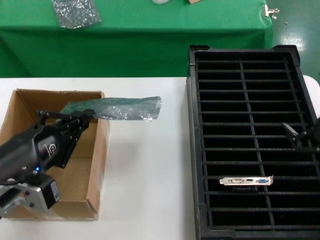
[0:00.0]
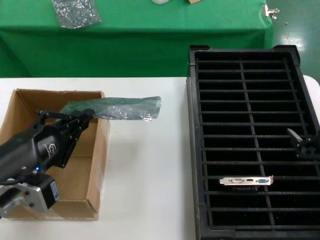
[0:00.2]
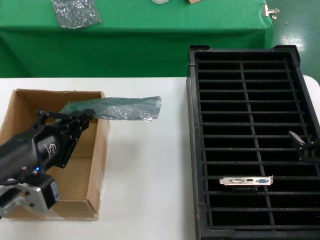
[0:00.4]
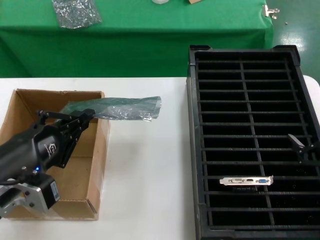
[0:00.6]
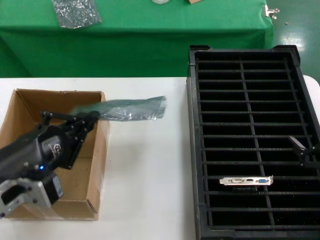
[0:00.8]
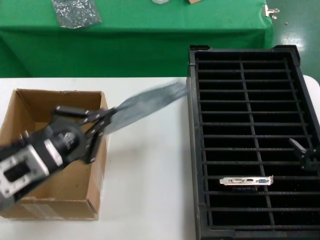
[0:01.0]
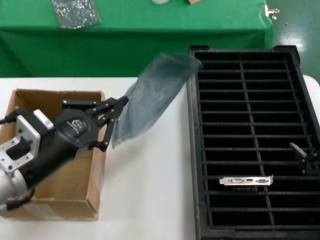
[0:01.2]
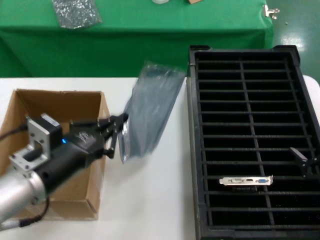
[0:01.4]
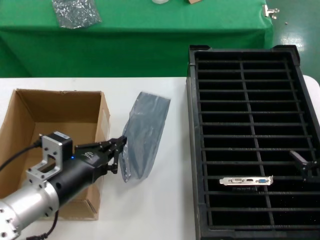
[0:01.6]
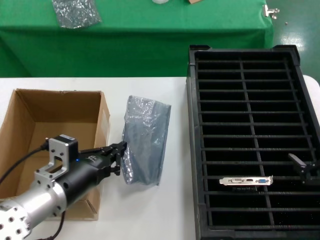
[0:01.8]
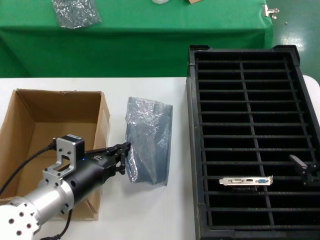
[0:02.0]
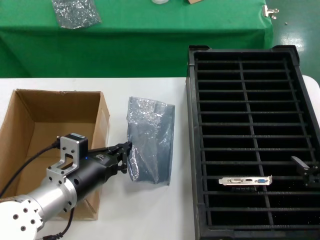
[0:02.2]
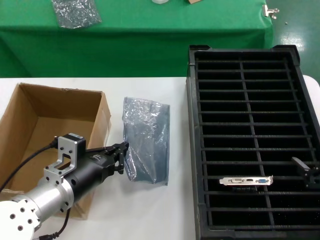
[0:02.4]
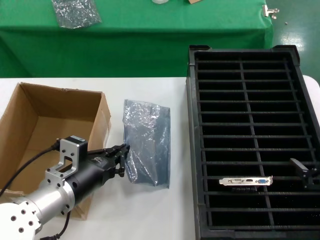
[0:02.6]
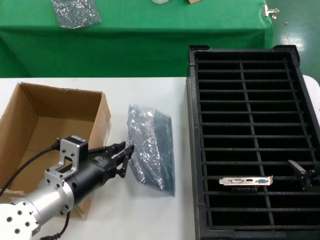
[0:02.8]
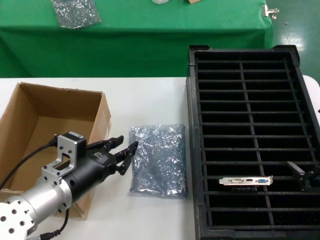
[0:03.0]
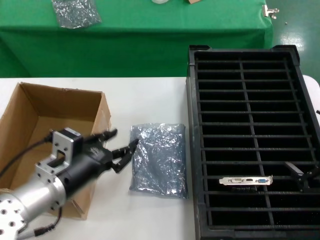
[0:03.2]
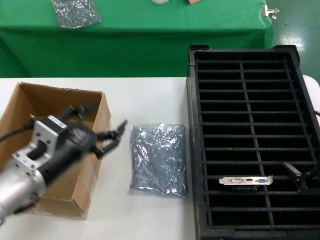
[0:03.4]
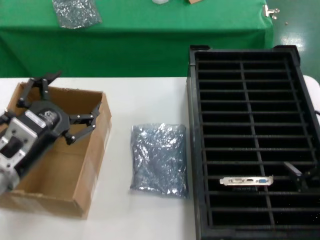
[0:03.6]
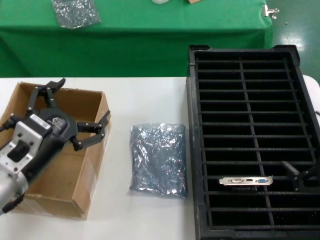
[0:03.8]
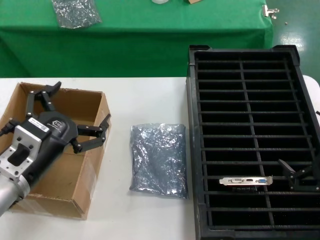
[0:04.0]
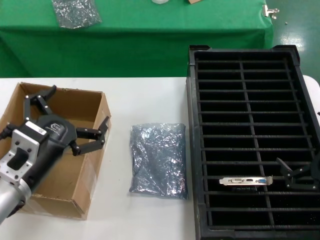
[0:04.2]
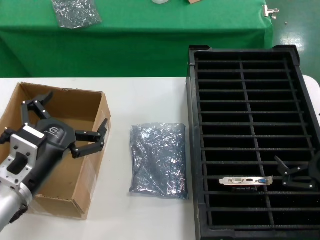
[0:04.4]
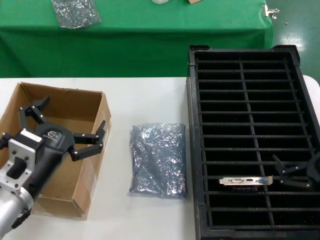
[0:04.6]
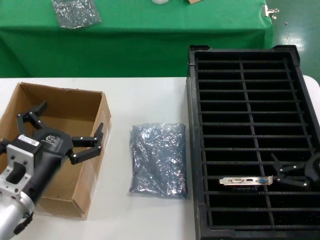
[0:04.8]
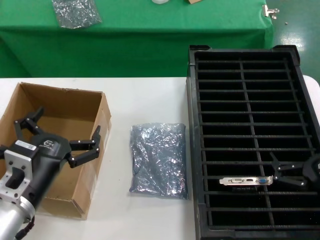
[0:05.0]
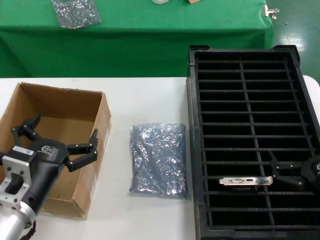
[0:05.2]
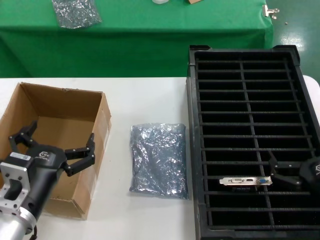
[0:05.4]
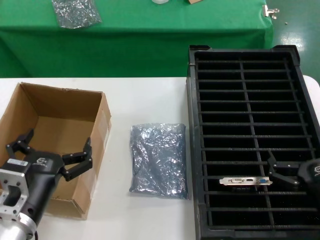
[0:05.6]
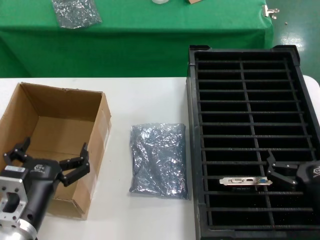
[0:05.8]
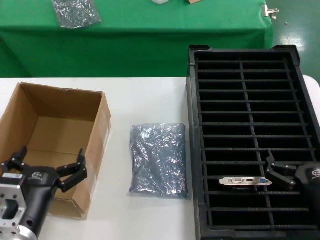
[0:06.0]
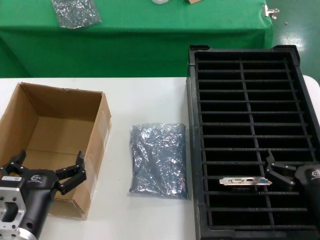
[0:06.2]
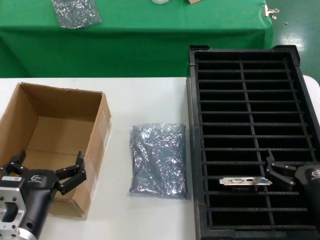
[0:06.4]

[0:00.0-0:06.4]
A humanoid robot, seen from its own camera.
Task of the whole recording: take out graphics card from box remove packaging put into black container.
Step, 0:00.0 to 0:02.8: Place the down the bag.
0:00.0 to 0:01.6: The left hand shifts about 10 cm forward and downward. The right hand ends up about 5 cm from where it was.
0:01.6 to 0:03.2: The hands stay close to where they were, moving slightly.
0:03.2 to 0:04.8: The right hand moves about 5 cm, while the left hand moves approximately 5 cm.
0:04.8 to 0:06.4: The right hand shifts some 5 cm to the left, while the left hand goes roughly 5 cm downward.

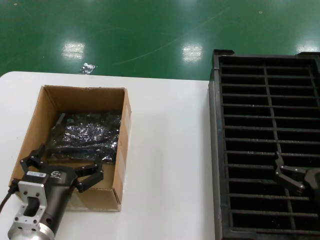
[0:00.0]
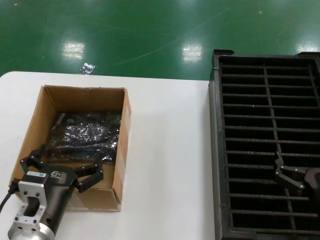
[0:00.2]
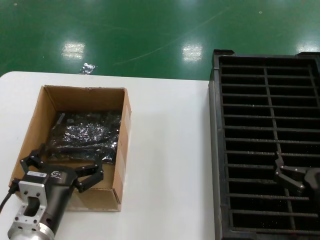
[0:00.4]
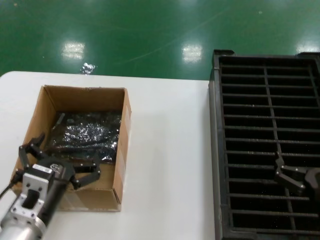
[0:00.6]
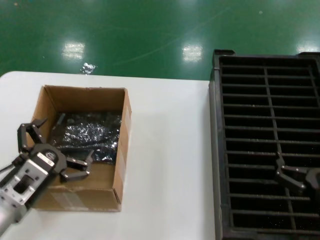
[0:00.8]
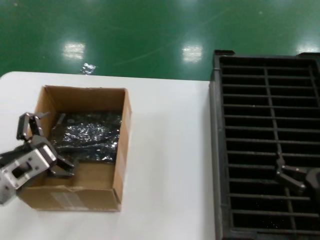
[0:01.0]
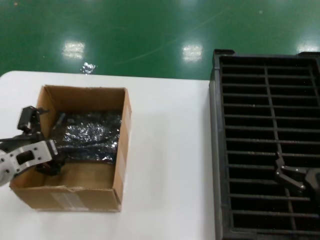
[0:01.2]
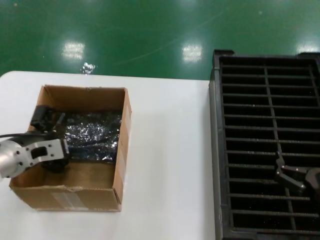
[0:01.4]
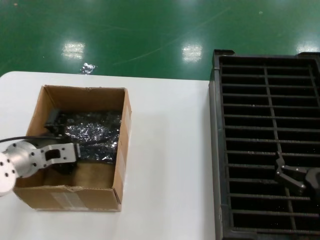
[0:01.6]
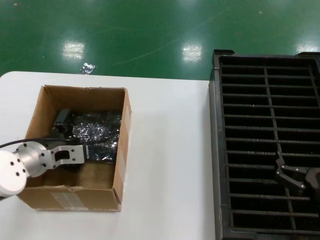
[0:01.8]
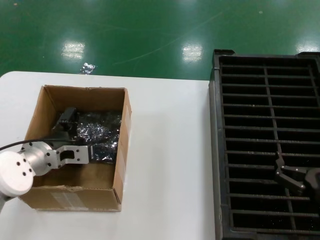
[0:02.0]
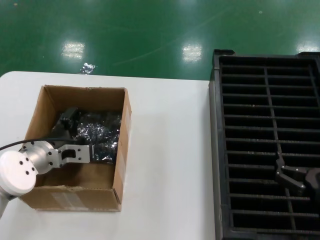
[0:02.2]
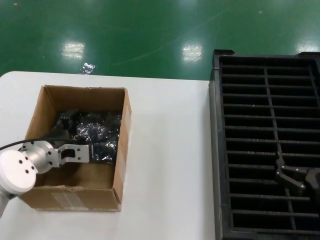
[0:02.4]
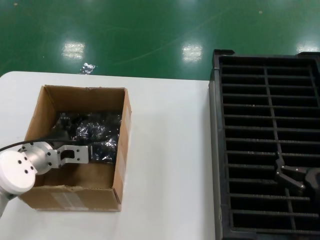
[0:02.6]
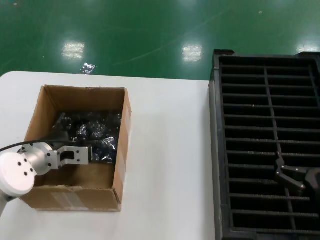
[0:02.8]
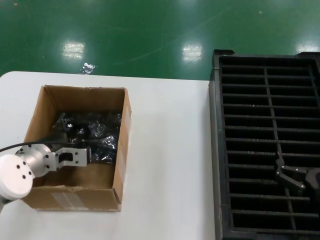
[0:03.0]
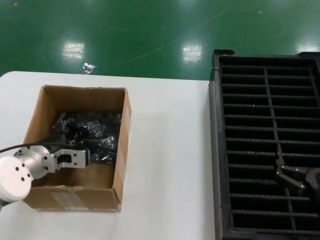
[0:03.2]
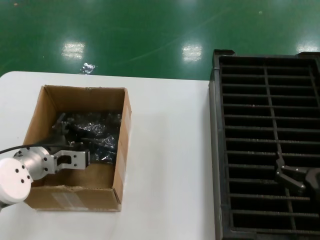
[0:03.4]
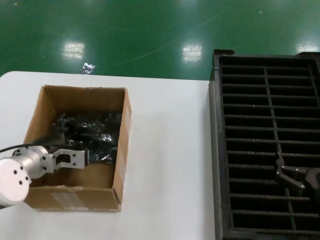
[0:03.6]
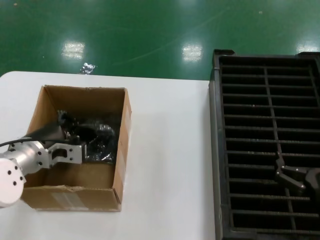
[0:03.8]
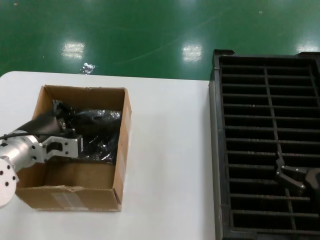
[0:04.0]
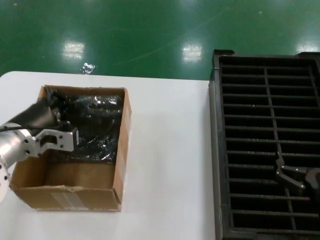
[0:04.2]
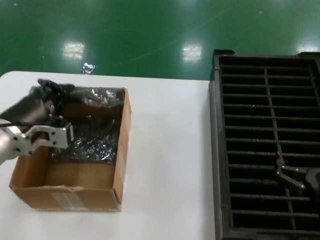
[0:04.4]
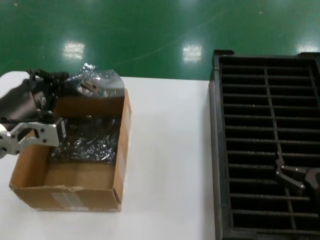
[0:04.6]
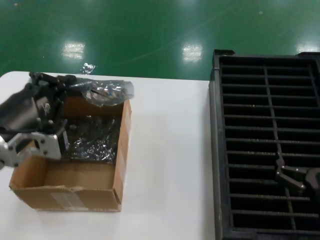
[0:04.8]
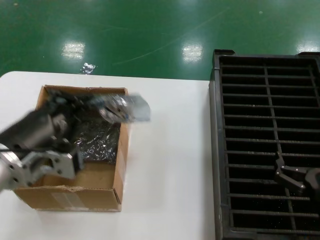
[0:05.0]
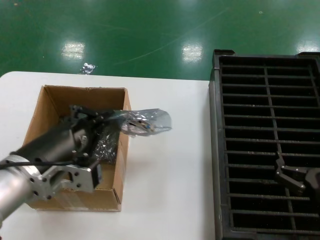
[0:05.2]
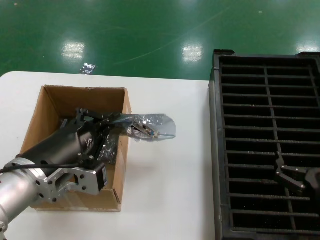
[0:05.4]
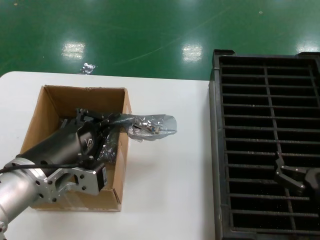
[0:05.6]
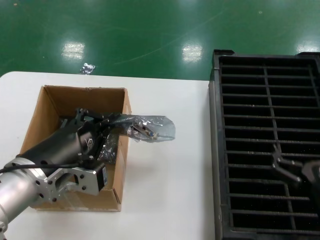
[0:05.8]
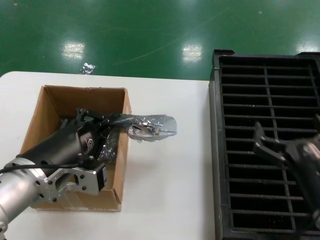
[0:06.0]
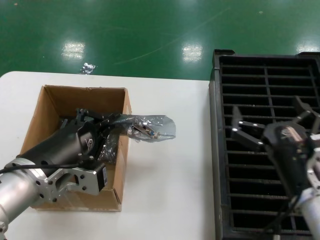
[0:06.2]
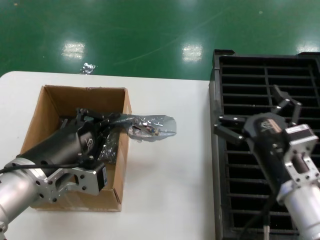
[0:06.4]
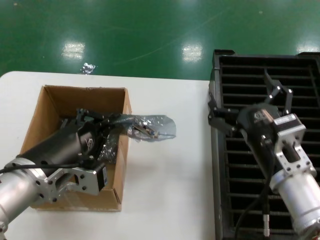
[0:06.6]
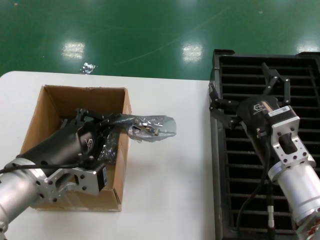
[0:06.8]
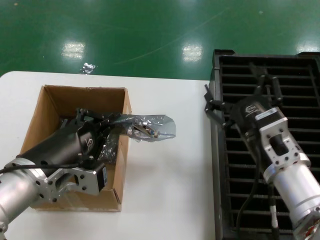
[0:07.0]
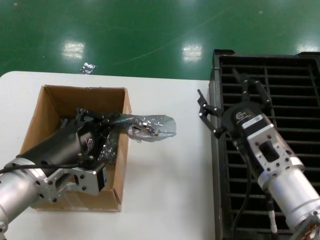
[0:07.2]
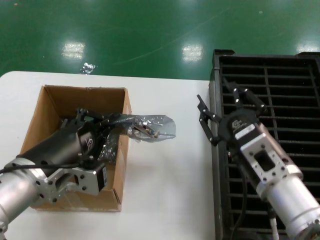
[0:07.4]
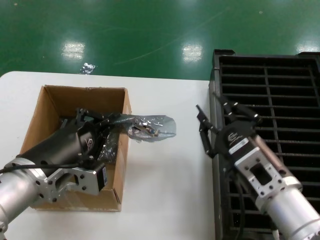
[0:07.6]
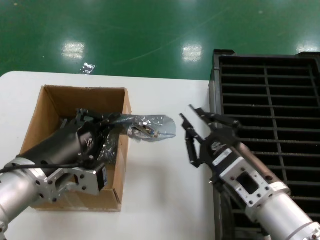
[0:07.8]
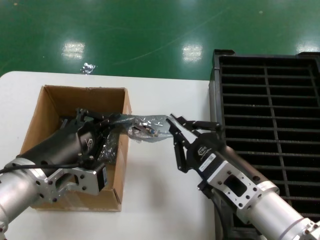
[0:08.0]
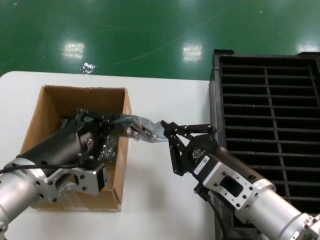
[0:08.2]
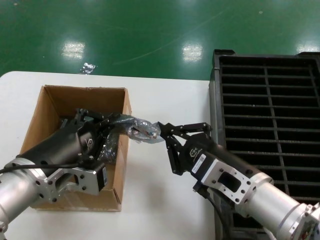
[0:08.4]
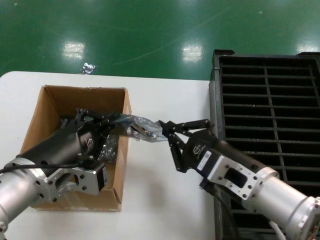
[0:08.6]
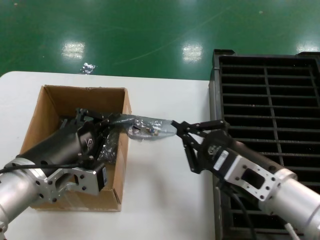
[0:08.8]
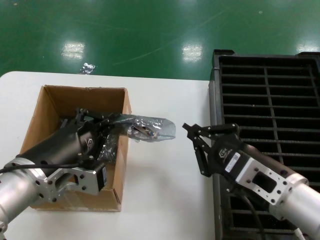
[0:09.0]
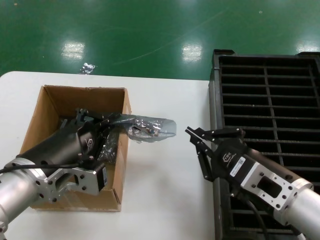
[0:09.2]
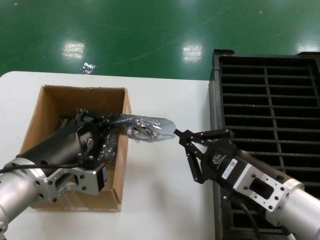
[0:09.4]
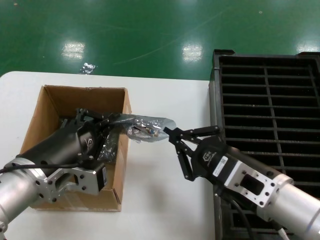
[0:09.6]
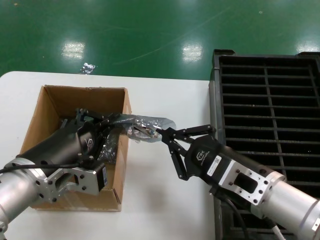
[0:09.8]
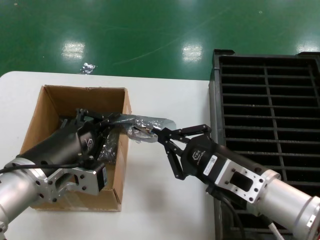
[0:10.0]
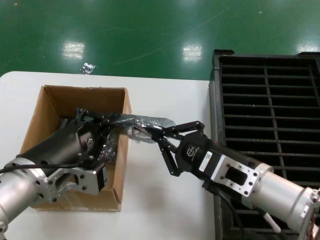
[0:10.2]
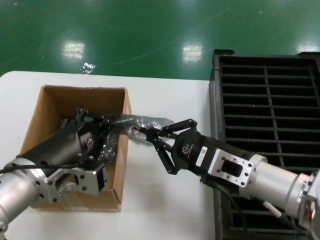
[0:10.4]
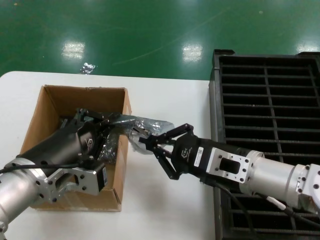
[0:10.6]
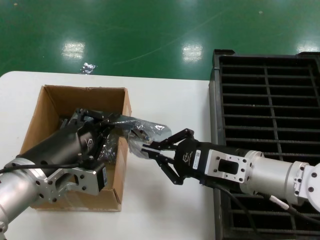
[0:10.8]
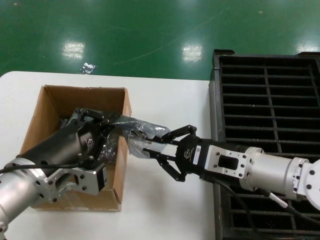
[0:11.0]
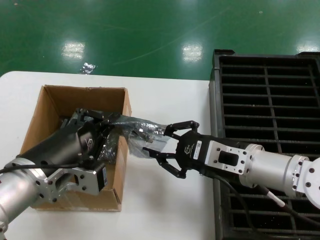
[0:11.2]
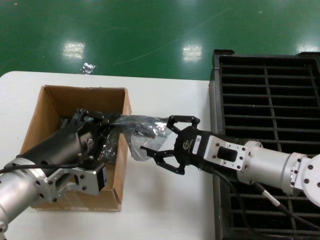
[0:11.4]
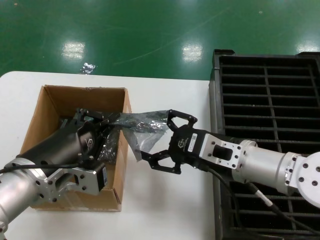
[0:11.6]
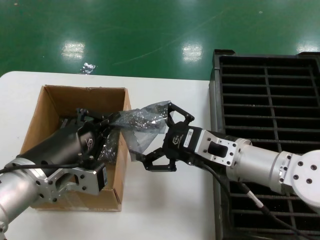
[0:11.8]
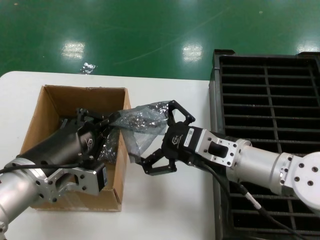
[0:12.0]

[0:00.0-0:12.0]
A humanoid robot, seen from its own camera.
Task of the whole recording: take out graphics card from box remove packaging put into black container.
Step, 0:00.0 to 0:03.4: Grasp the bag.
Step, 0:03.6 to 0:06.2: Lift the bag.
0:00.0 to 0:01.6: The left hand is displaced forward, to the left and upward by approximately 20 cm.
0:01.6 to 0:03.0: There are only small adjustments of the hands.
0:03.0 to 0:04.4: The left hand is displaced upward and backward by approximately 10 cm.
0:04.4 to 0:06.0: The left hand moves backward and to the right, roughly 10 cm.
0:06.0 to 0:07.6: The right hand heads to the left, covering approximately 10 cm.
0:09.0 to 0:10.4: The right hand goes some 5 cm forward.
0:10.4 to 0:12.0: The hands make only small movements.

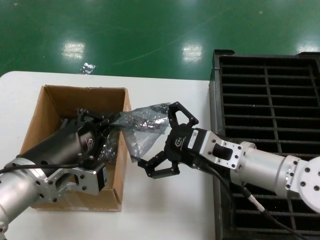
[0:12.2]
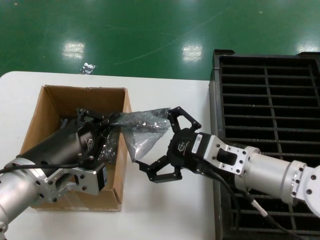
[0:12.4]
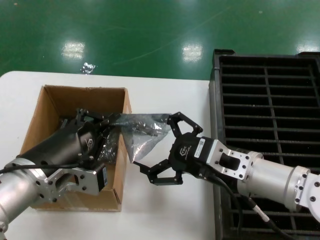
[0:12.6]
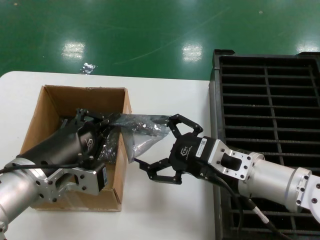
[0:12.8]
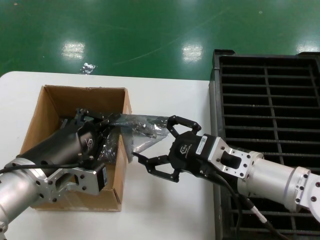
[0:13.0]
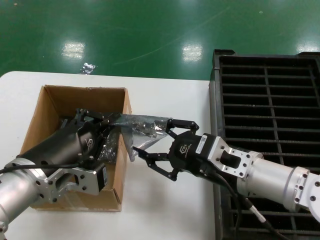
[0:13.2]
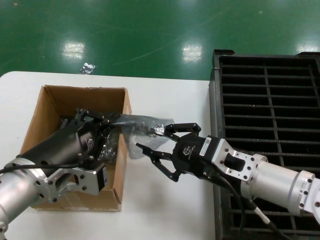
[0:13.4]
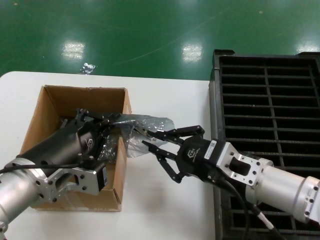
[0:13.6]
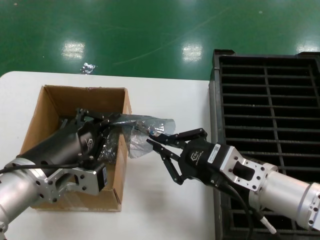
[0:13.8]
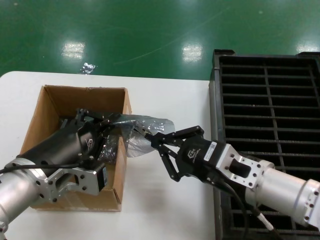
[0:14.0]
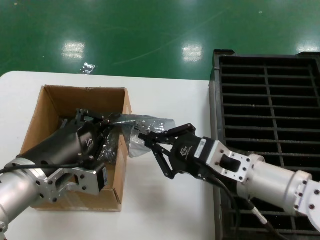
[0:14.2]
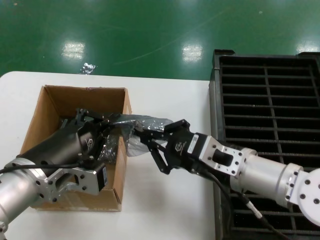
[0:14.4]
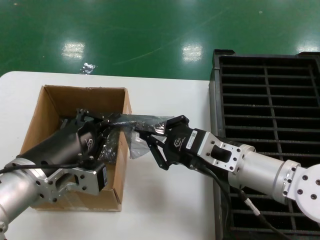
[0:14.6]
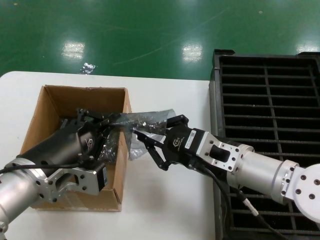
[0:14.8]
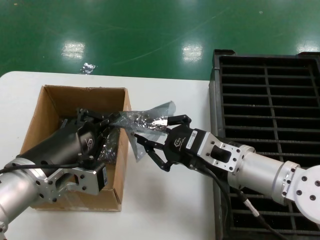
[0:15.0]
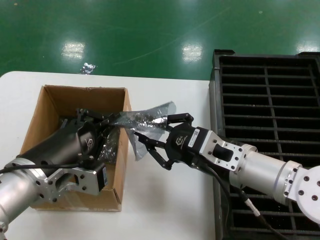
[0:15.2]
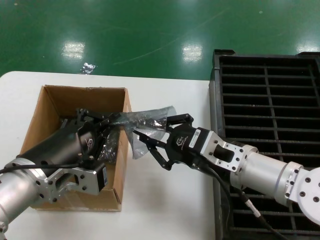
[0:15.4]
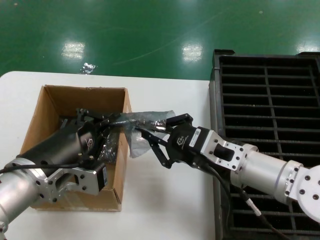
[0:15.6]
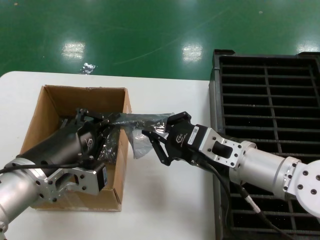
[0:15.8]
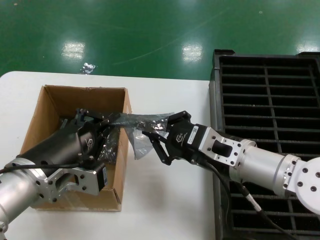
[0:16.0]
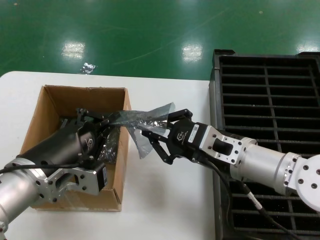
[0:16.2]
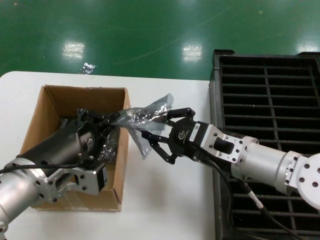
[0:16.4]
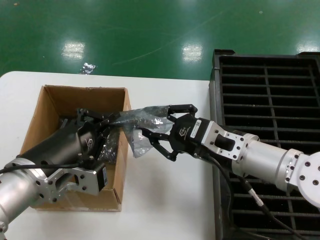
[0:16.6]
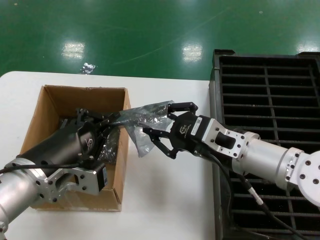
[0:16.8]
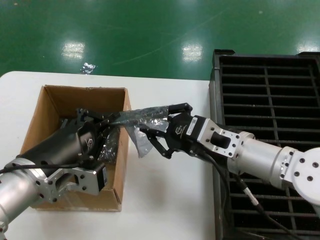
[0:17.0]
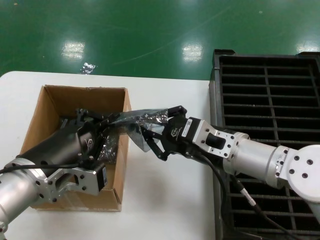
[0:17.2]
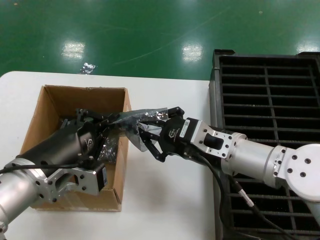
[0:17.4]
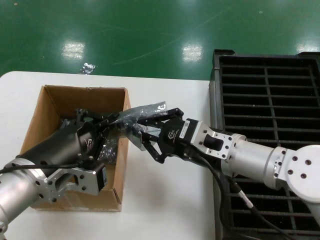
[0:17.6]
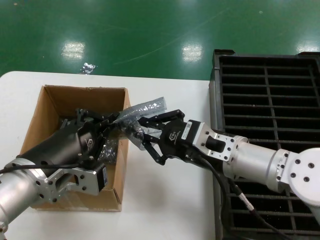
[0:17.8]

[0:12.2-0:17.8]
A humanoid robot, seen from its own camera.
Task of the whole recording: take out graphics card from box remove packaging put into black container.
0:12.2 to 0:17.8: The hands move only a little.
